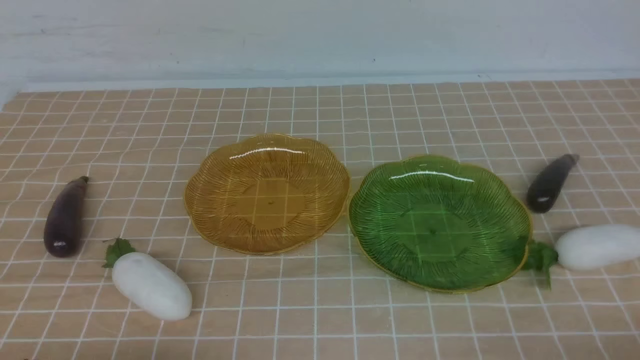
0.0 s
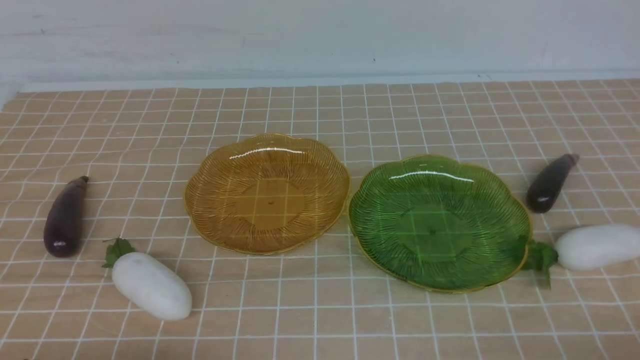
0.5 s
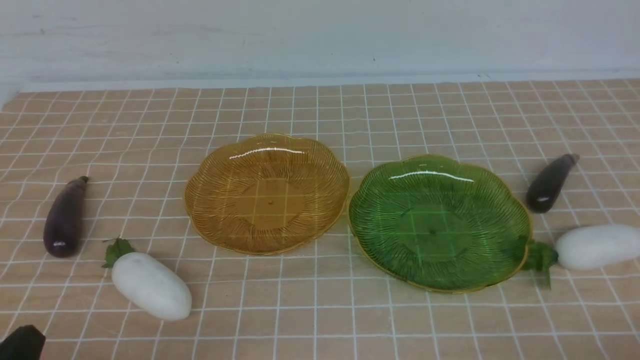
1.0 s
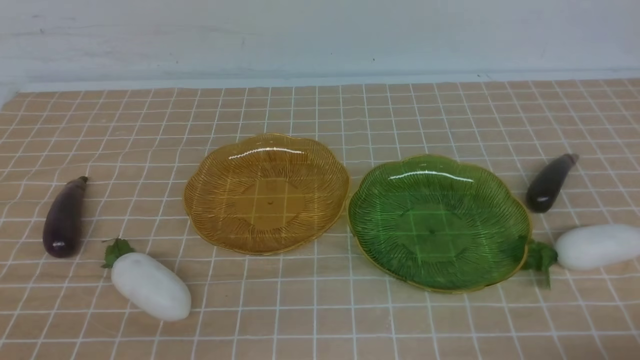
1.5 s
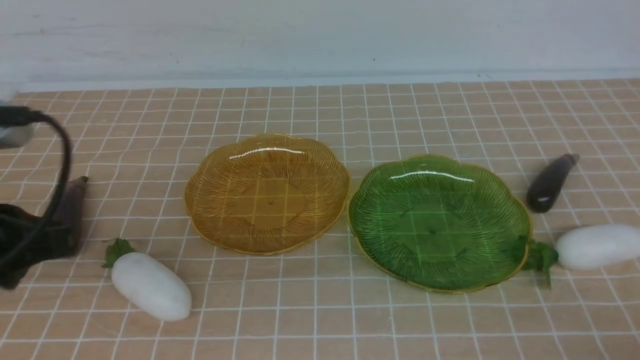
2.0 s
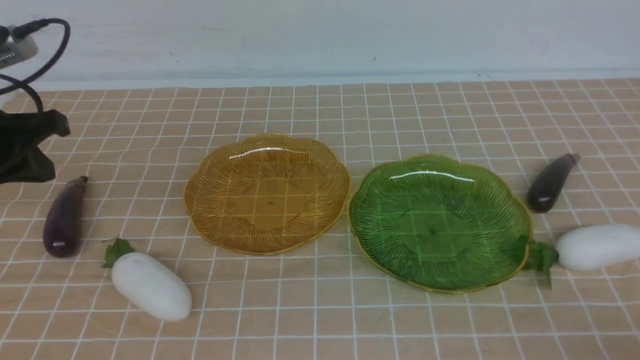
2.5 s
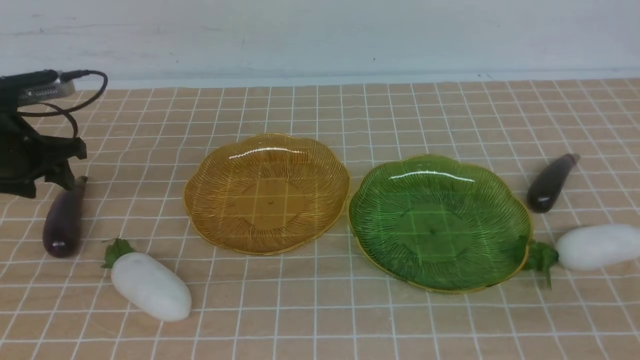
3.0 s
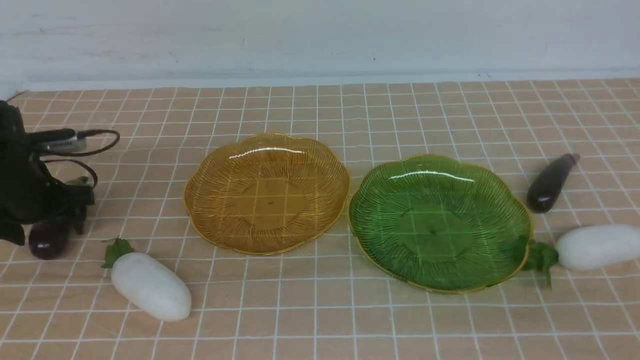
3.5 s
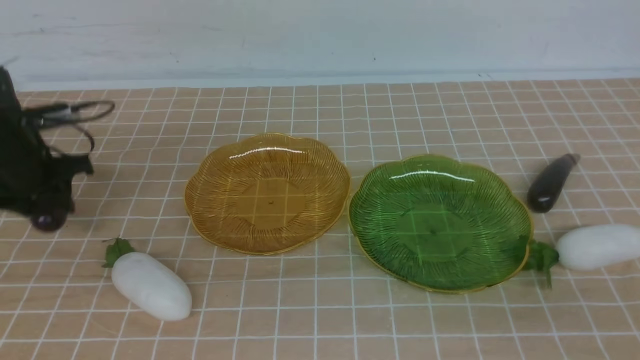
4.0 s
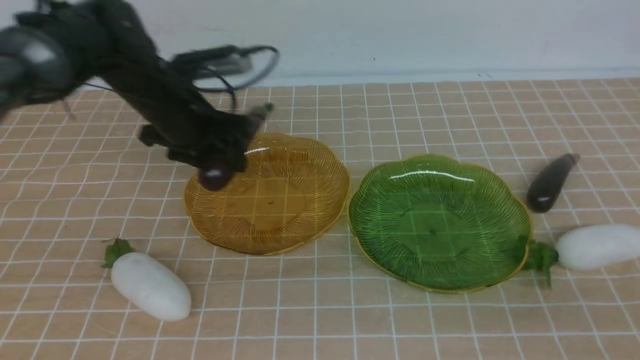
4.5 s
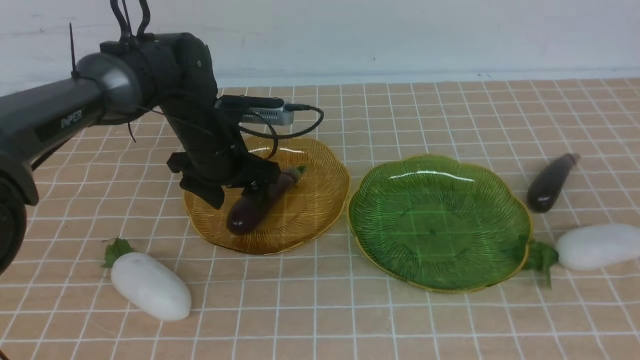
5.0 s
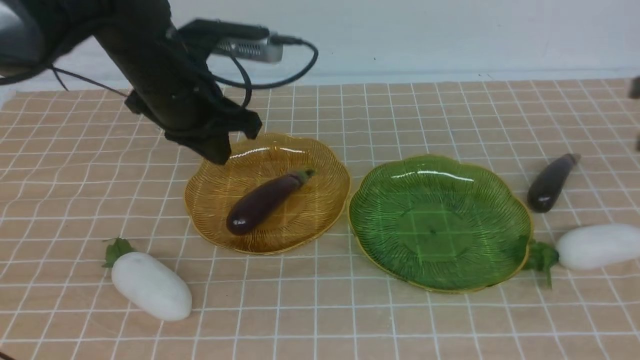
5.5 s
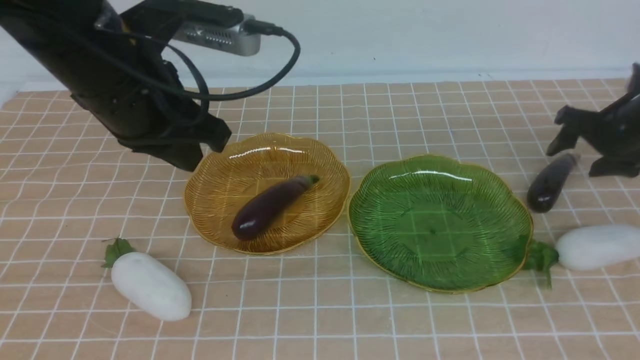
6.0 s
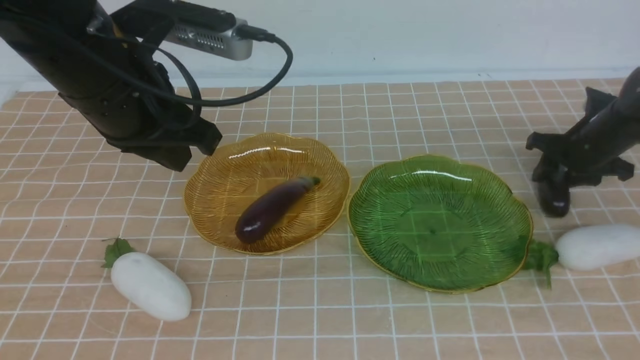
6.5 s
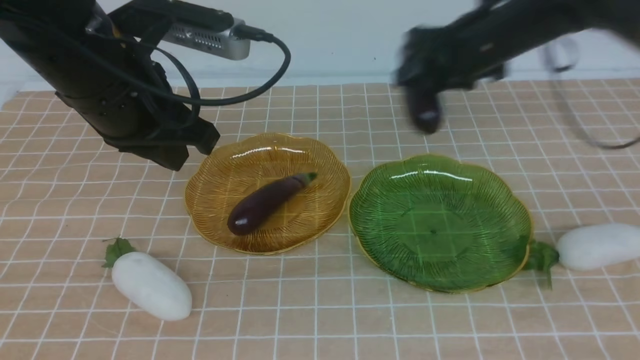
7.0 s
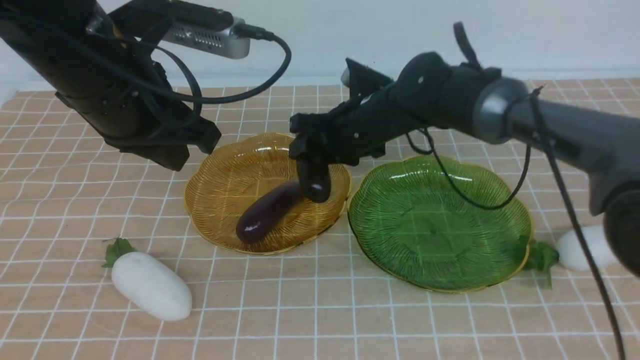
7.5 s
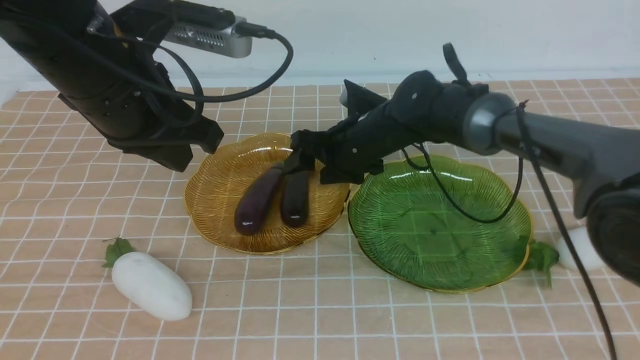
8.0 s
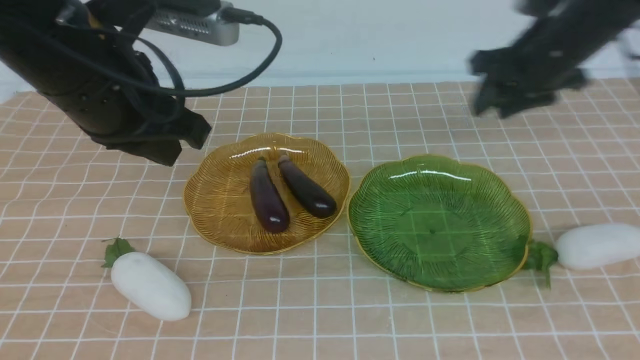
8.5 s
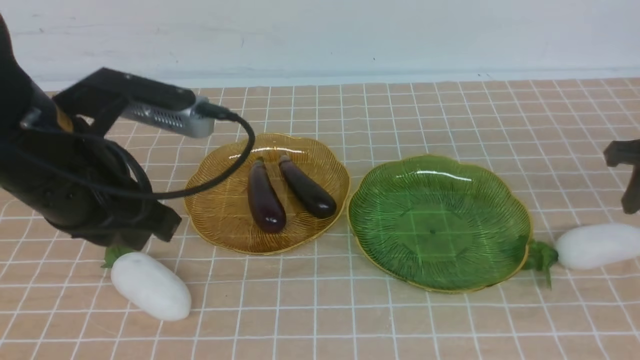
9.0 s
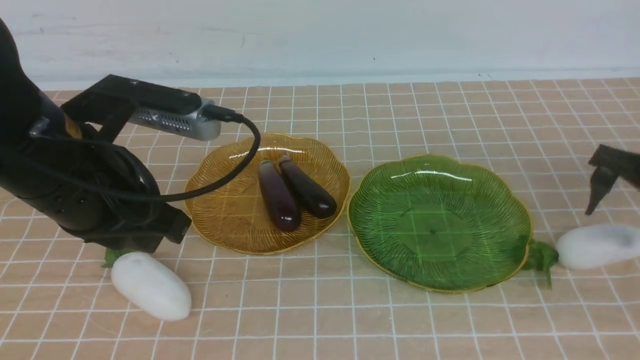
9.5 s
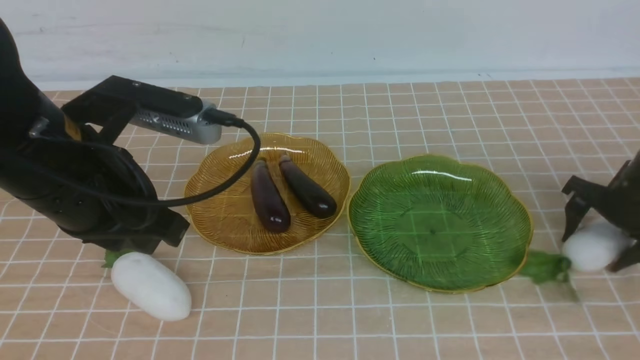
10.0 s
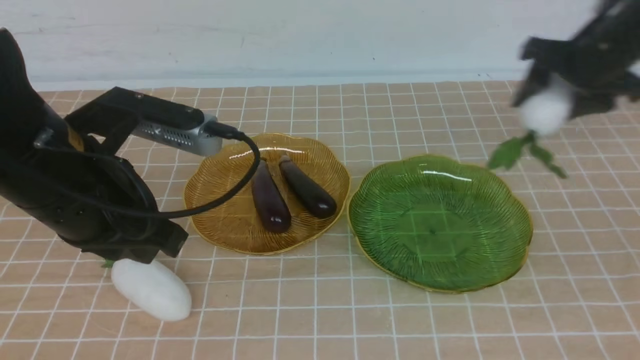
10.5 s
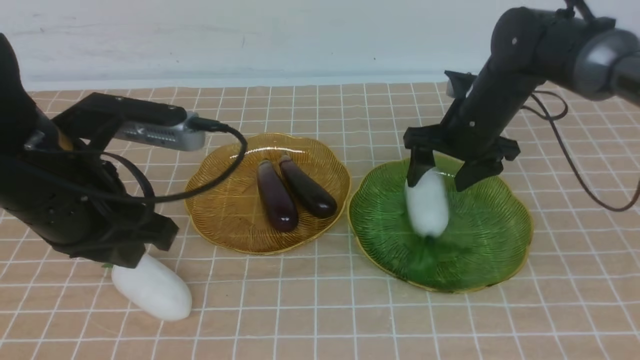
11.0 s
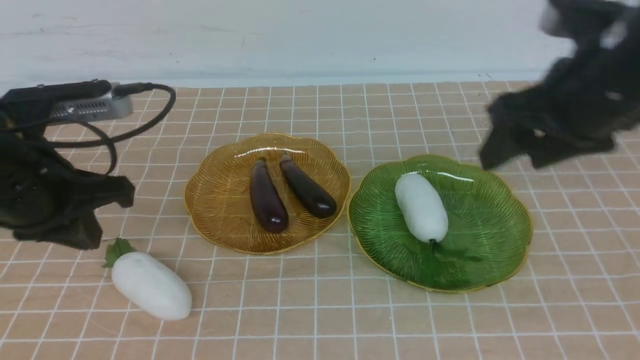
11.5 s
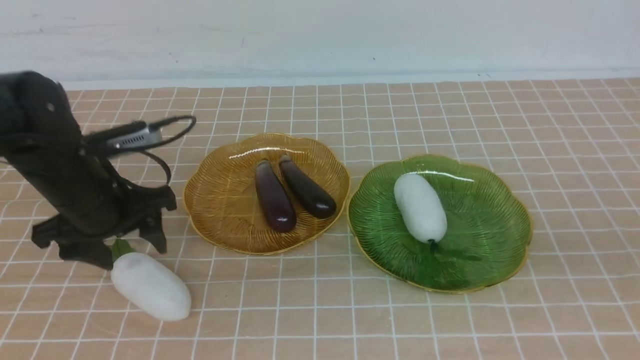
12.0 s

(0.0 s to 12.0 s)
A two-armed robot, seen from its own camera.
Step, 0.0 s - 5.0 s: use the left arm to grab an eggplant and put it into the left plate.
Step, 5.5 s - 8.0 s: use the right arm to grab an eggplant and put it into the left plate.
Step, 8.5 s - 11.0 s: use the right arm to grab a radish and put it into the right plate.
0.0 s - 2.0 s: The left gripper goes approximately 20 cm upward and forward.
2.0 s - 4.0 s: The left gripper moves forward and downward, roughly 25 cm, and opens its fingers.
4.0 s - 6.0 s: The left gripper is displaced to the right, upward and backward by about 25 cm, and closes up, while the right gripper moves forward, about 40 cm, and opens up.
6.0 s - 8.0 s: The right gripper moves to the left, roughly 20 cm.
8.0 s - 10.0 s: The right gripper heads to the right and downward, covering some 25 cm, and closes, then opens again. Meanwhile the left gripper heads backward, covering some 5 cm.
10.0 s - 12.0 s: The right gripper travels backward and upward by approximately 40 cm, and closes, while the left gripper travels downward, forward and to the left by approximately 20 cm, and opens its fingers.

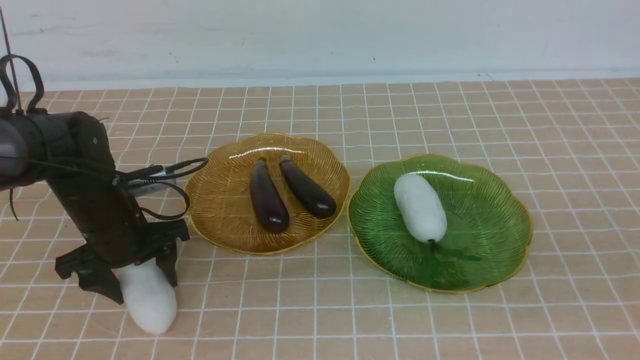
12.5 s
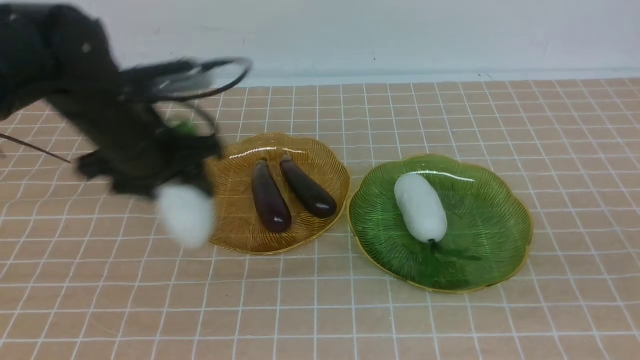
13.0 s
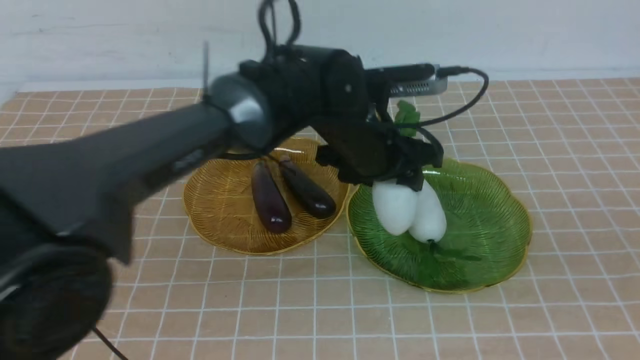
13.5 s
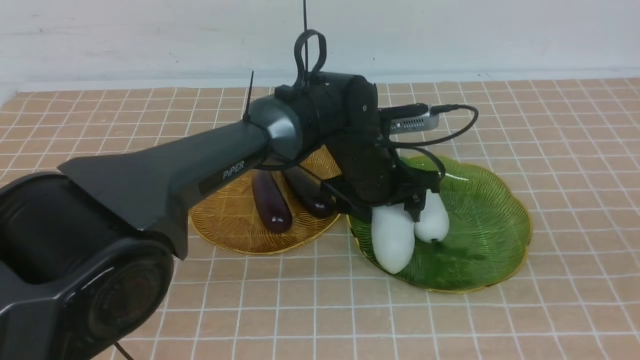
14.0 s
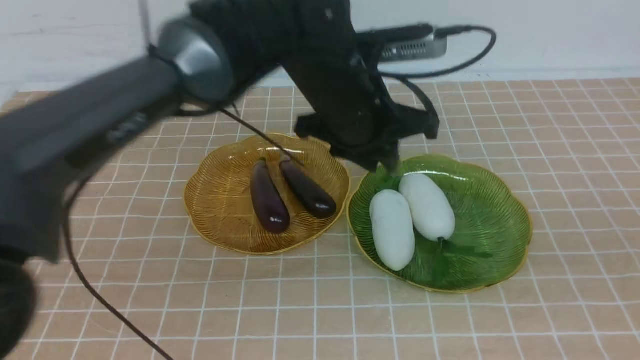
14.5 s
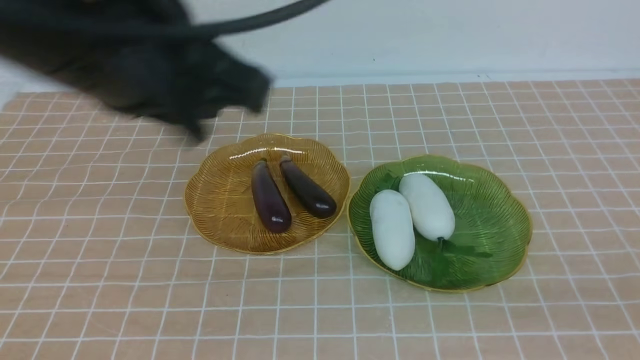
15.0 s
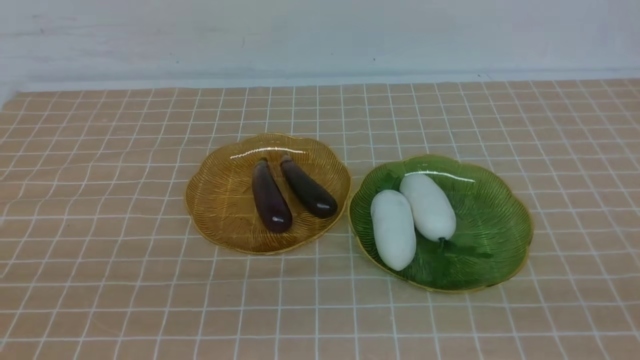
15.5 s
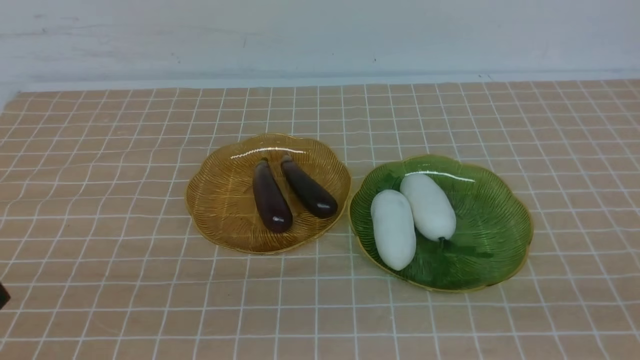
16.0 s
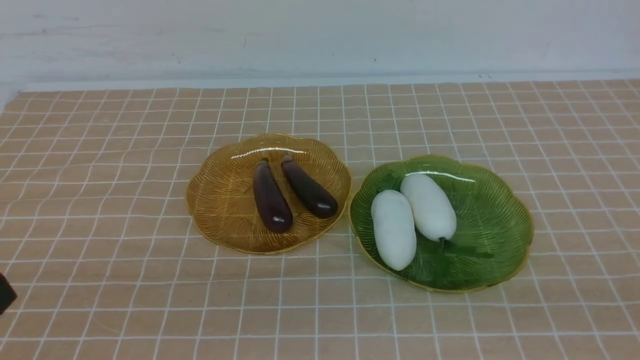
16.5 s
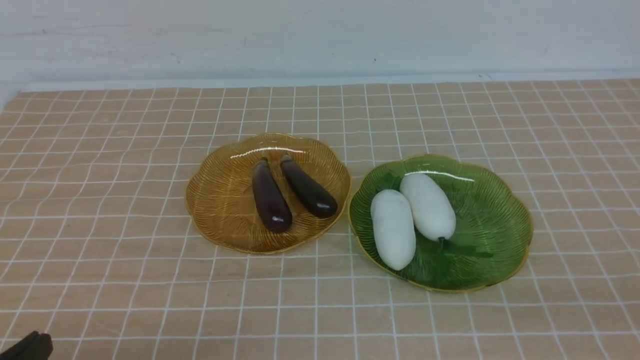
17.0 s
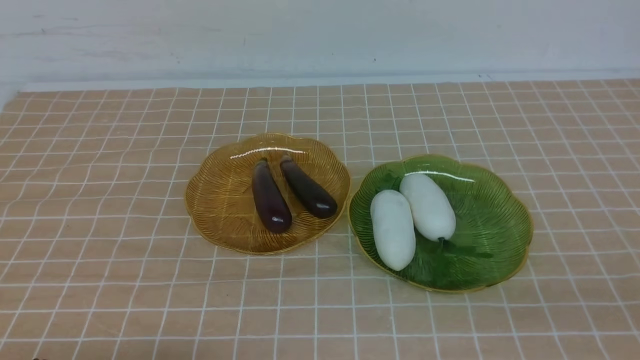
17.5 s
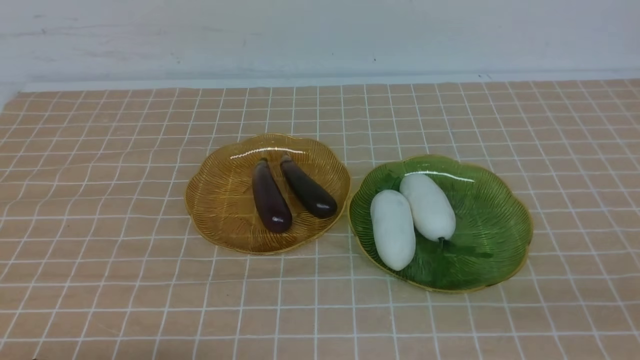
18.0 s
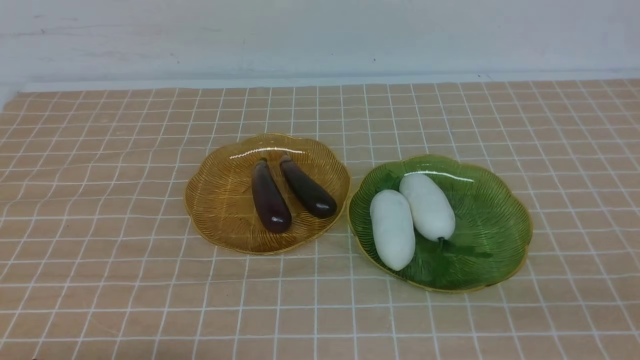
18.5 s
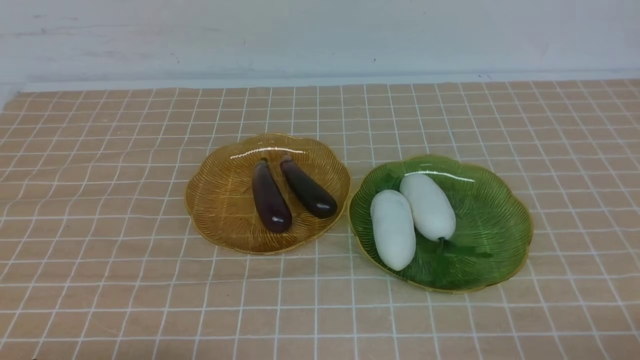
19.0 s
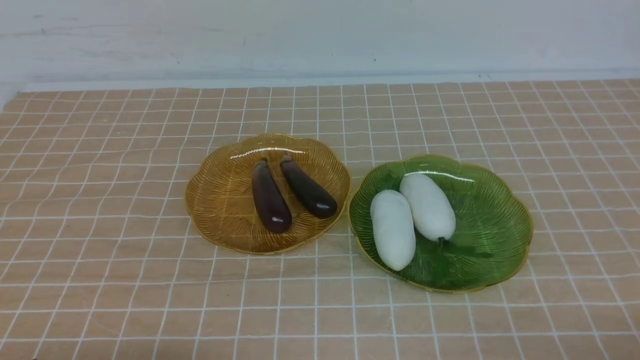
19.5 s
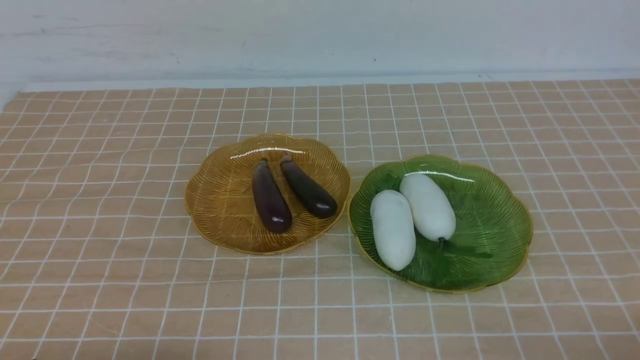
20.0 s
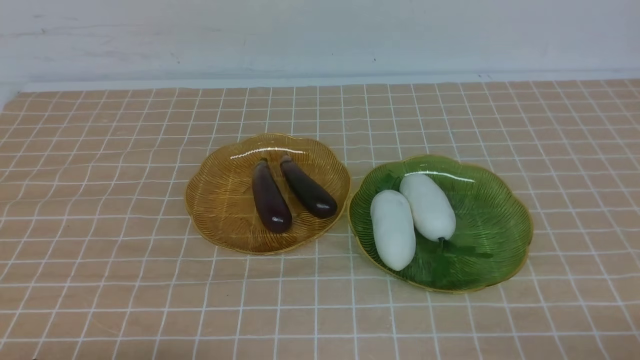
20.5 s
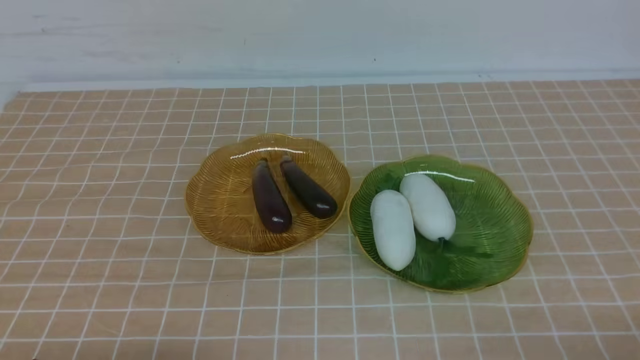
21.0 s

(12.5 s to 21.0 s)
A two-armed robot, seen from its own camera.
Step, 12.5 s - 14.0 s: use the left arm to grab a radish and put it into the right plate.
12.5 s - 14.5 s: The right gripper goes roughly 5 cm downward, and closes; the left gripper is displaced upward and backward by roughly 20 cm, and closes up.
14.5 s - 16.5 s: The left gripper travels backward, to the left and downward by roughly 25 cm.
19.0 s - 21.0 s: Both grippers stay put.
